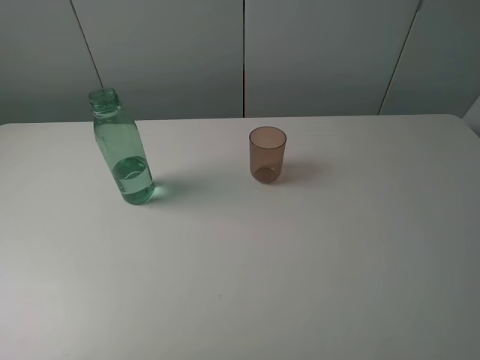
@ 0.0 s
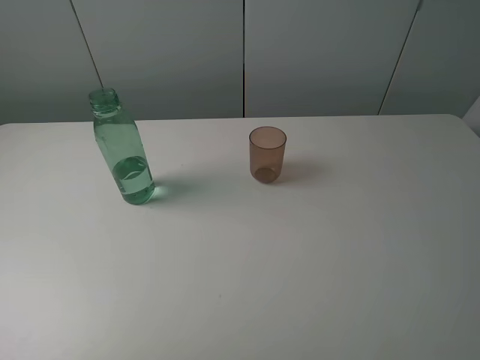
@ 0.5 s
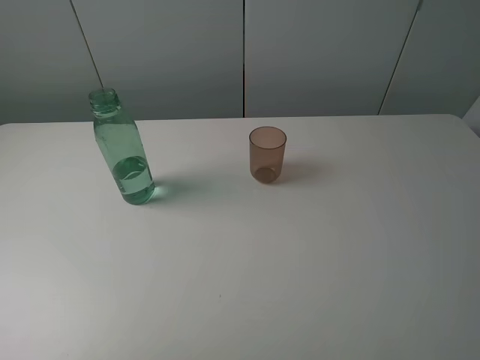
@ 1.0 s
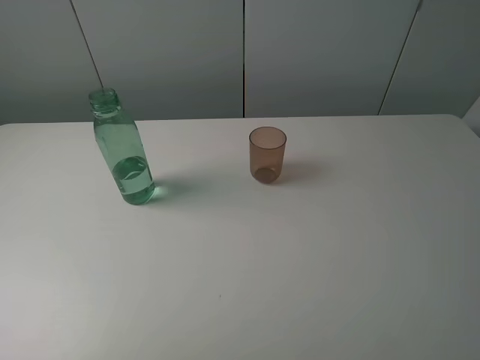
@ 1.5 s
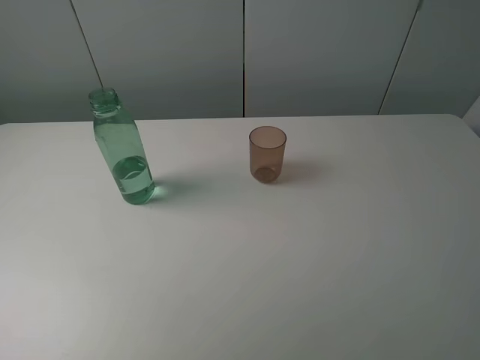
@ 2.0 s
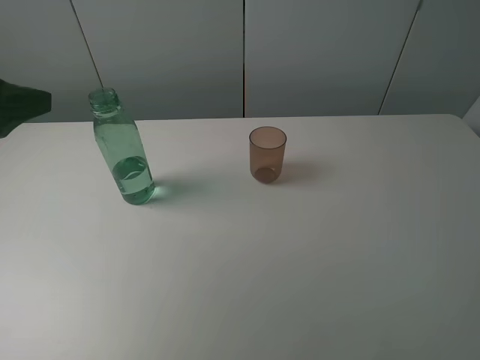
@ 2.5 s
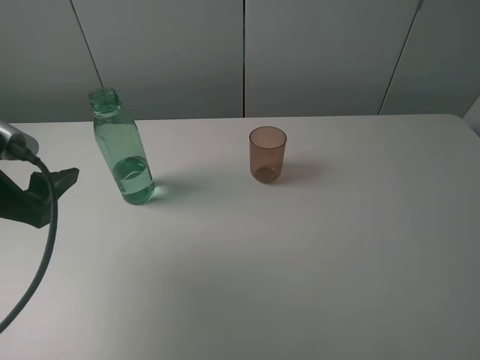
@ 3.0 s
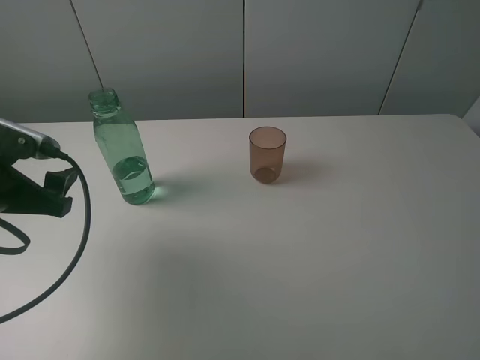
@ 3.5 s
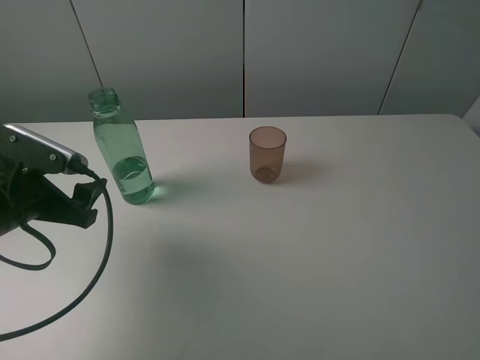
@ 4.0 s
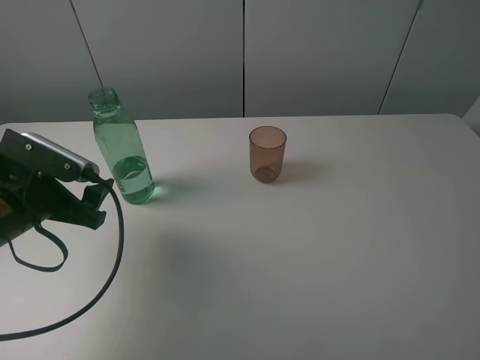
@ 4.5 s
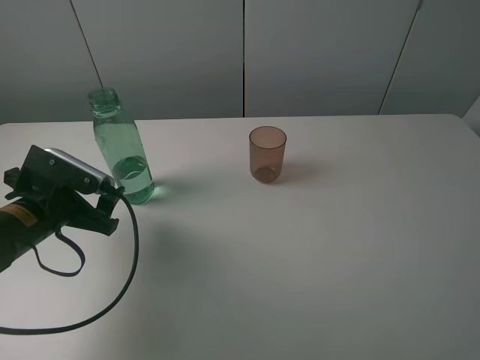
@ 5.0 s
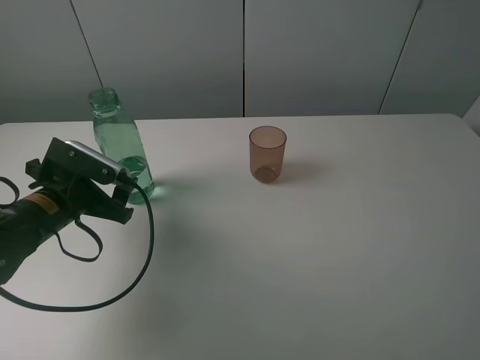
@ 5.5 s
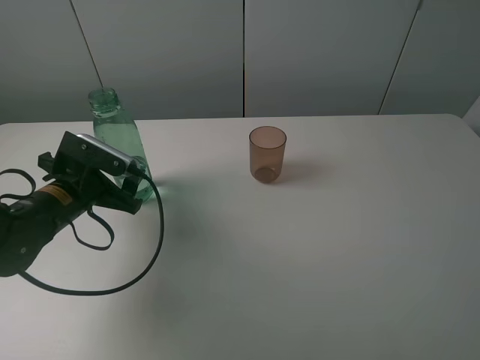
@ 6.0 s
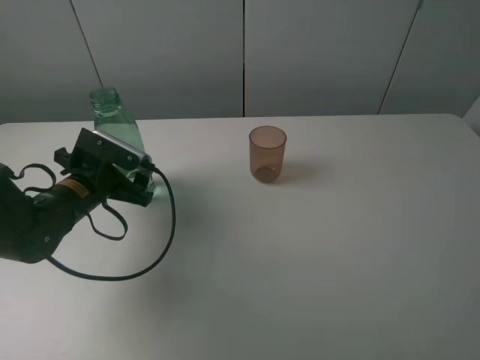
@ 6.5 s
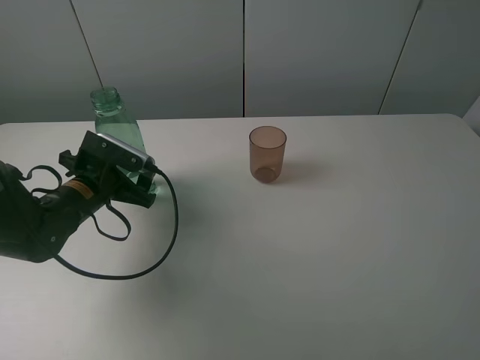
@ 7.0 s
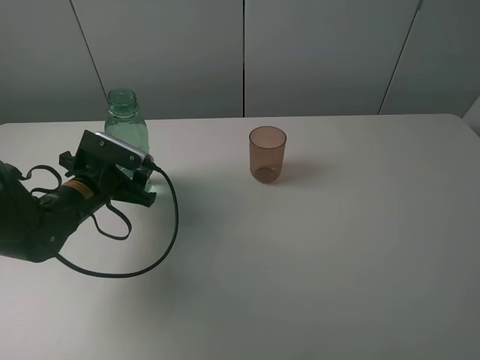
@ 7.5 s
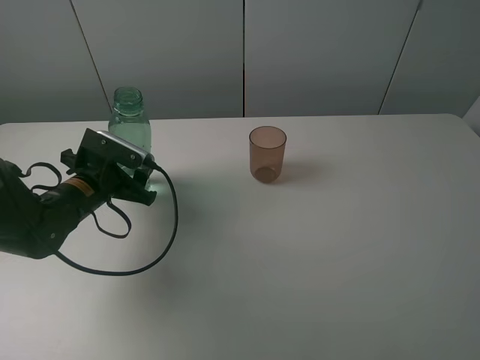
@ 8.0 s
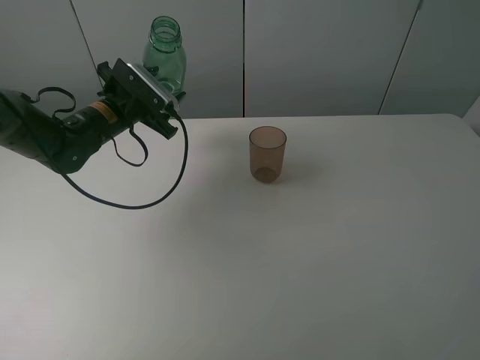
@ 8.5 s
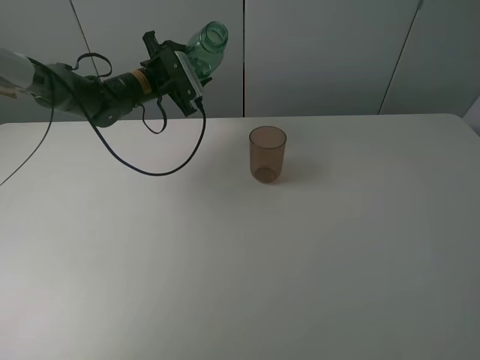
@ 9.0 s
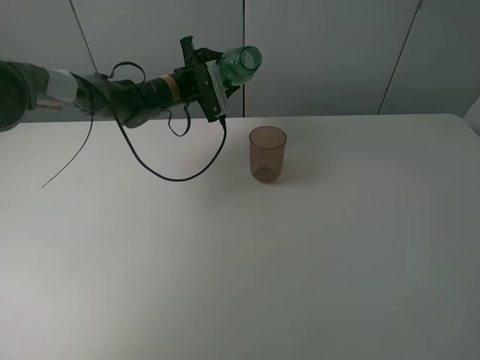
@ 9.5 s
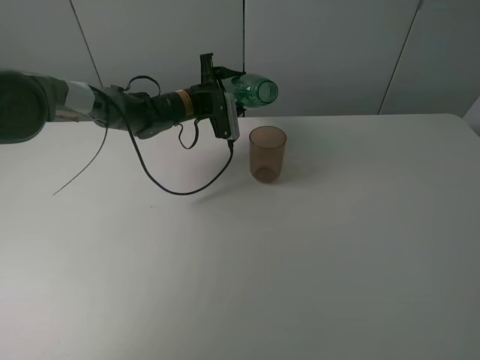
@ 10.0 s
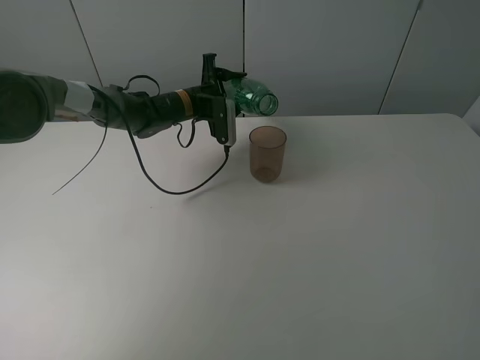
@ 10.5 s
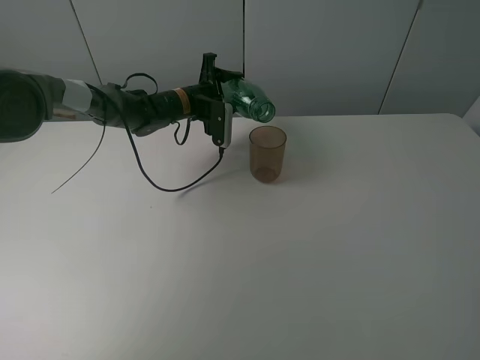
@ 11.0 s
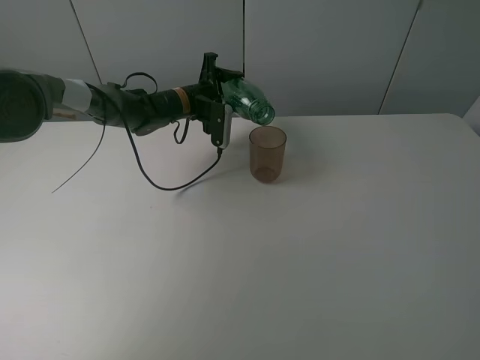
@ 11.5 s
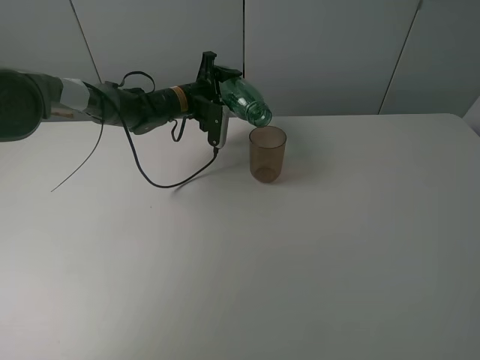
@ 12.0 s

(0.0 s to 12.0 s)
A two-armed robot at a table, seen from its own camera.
Task of the whole recording: pick up the bottle filled with water and pour it into the pink cup.
Step, 0.0 s - 7.5 s: Grasp the green bottle with the left gripper.
2.0 s - 4.0 s: The left gripper travels downward and forward by some 20 cm.
4.0 s - 6.0 s: The left gripper moves forward and downward, roughly 10 cm.
6.0 s - 8.0 s: The left gripper closes its fingers.
8.0 s - 10.0 s: The left gripper is displaced forward and to the right by approximately 25 cm.

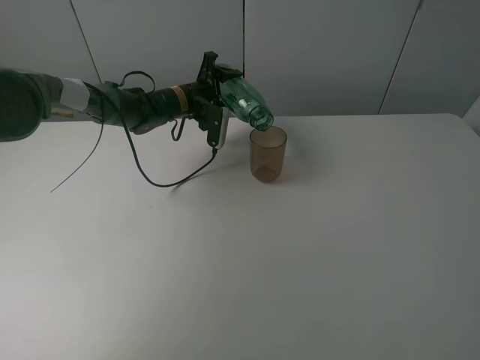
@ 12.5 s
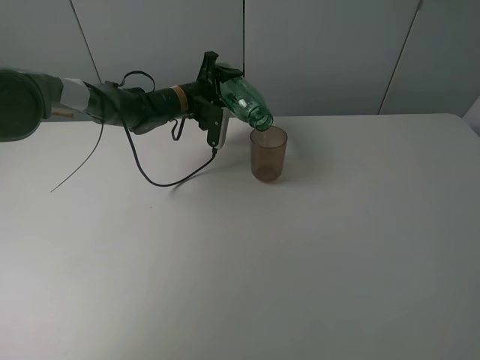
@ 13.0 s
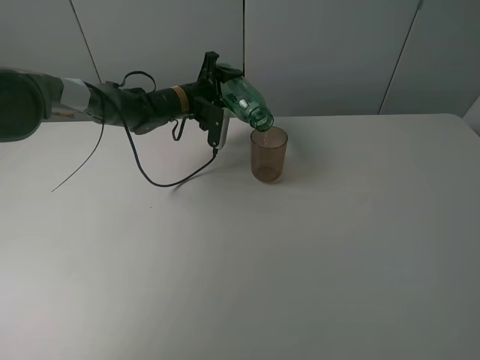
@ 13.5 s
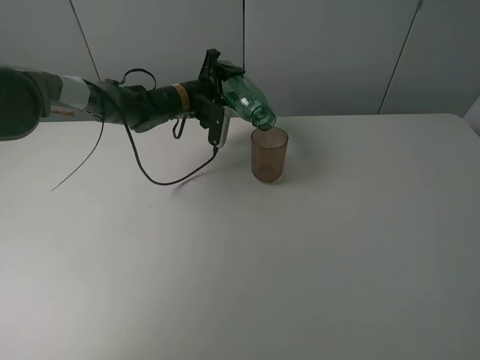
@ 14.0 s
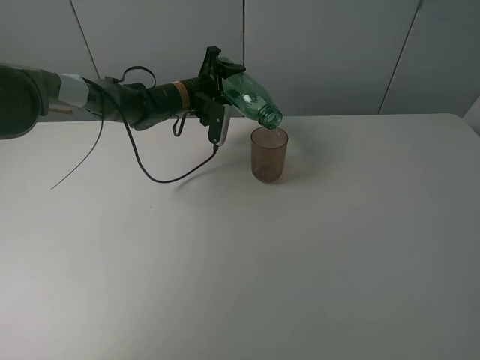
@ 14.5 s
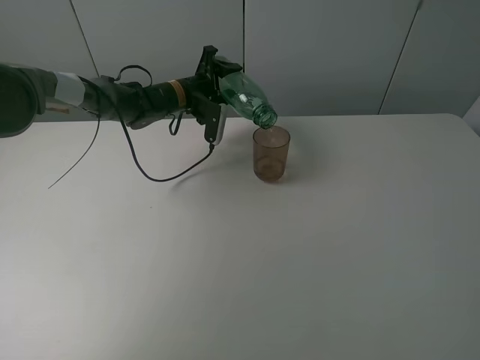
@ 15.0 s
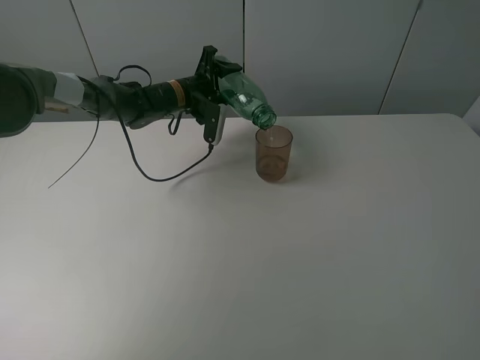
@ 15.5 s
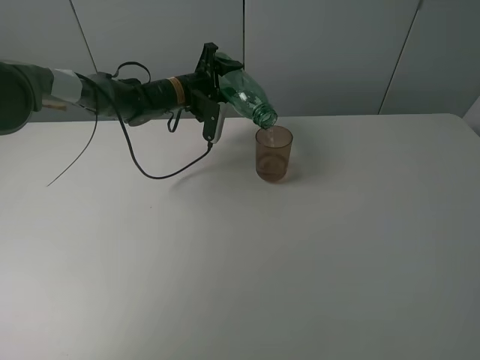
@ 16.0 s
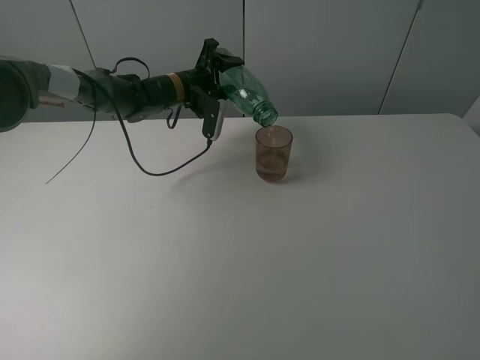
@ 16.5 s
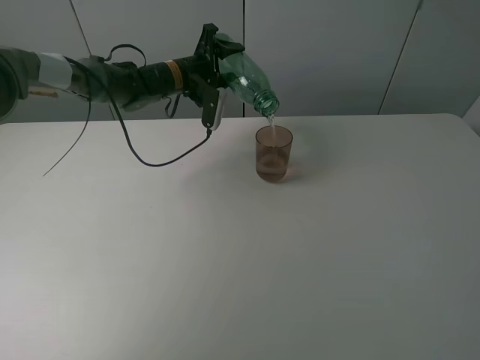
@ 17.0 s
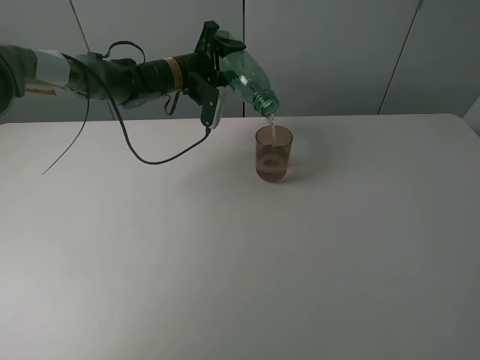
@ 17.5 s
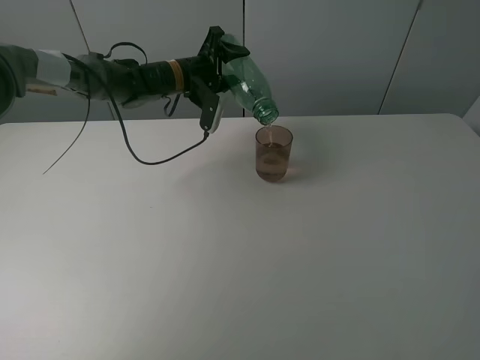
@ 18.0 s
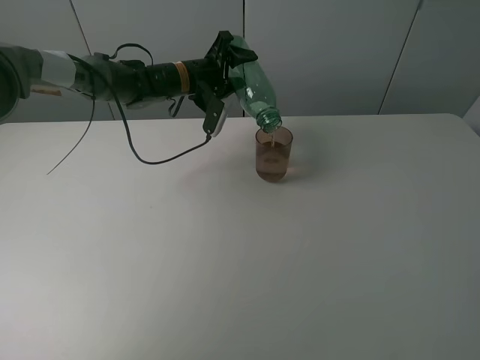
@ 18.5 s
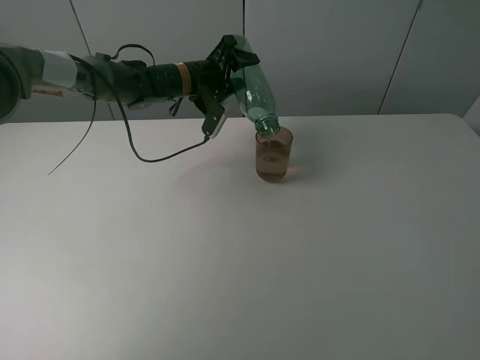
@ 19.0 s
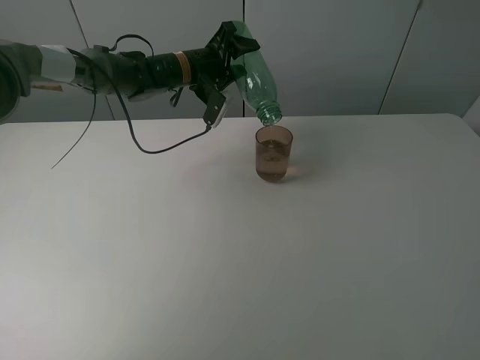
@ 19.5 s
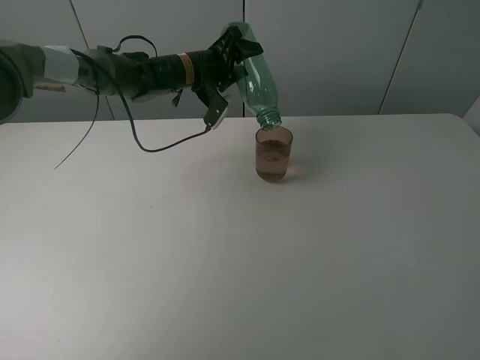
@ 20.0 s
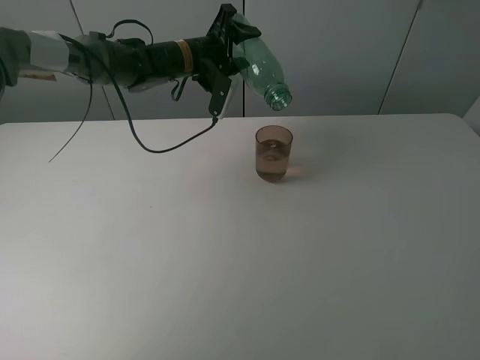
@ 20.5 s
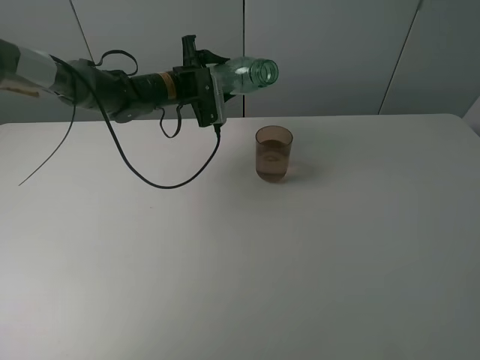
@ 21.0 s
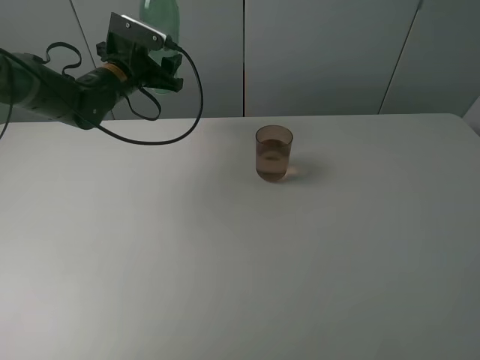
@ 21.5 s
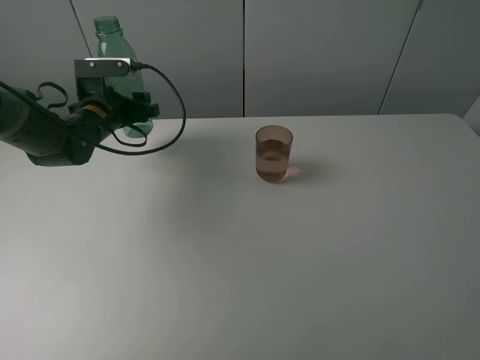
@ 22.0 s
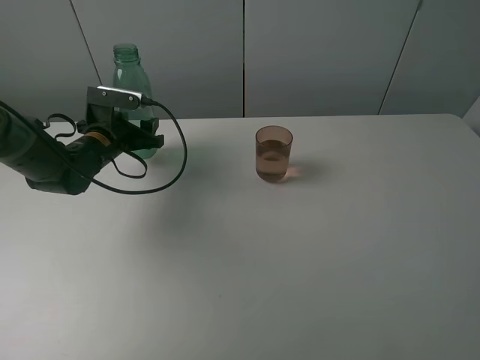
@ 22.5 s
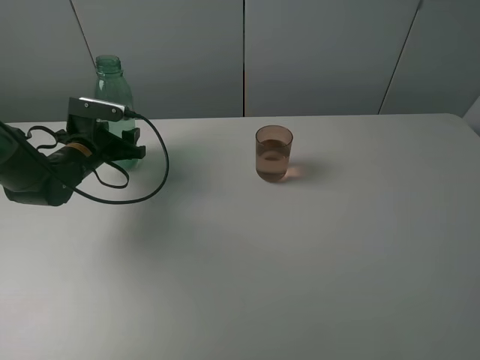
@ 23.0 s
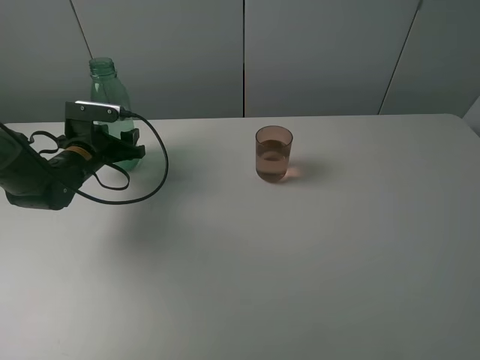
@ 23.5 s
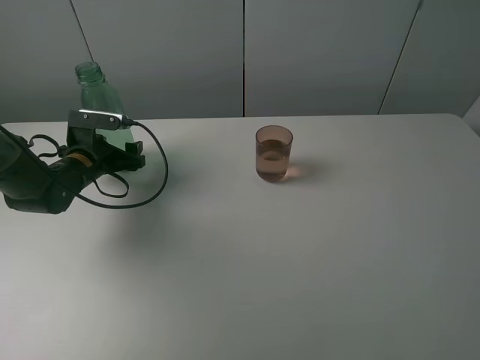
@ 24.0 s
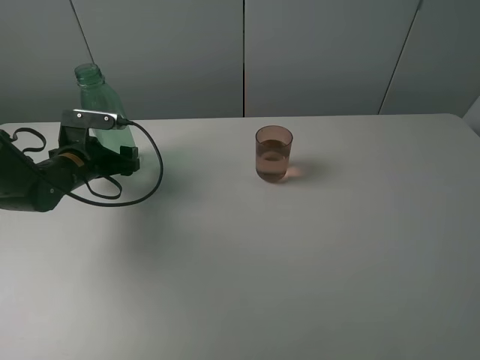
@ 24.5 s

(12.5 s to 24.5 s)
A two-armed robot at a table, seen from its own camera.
Task of the whole recording: pick up the bottle filled with water and pour it into the pink cup.
Step, 12.5 s - 19.5 s: Pour water from green bottle to pink cup with the left gripper.
Step, 20.0 s - 24.0 s: Place the green bottle with the left gripper.
12.5 s - 14.5 s: The two grippers keep their place.
14.5 s - 18.5 s: The grippers make only small movements.
18.5 s - 20.5 s: The grippers move only a little.
20.5 s - 22.5 s: The left gripper shifts approximately 20 cm to the left, backward and downward.
22.5 s - 24.5 s: The left gripper shifts by roughly 5 cm, and opens up.

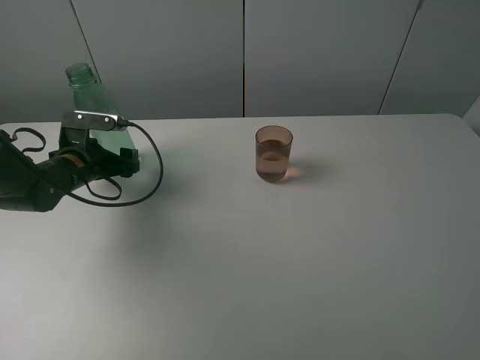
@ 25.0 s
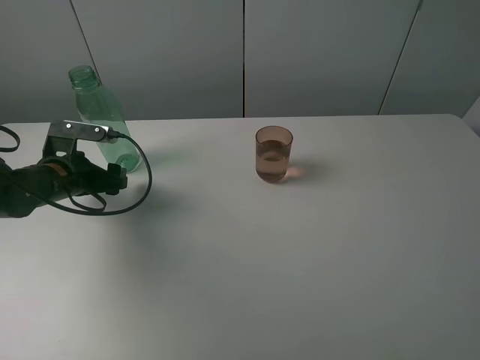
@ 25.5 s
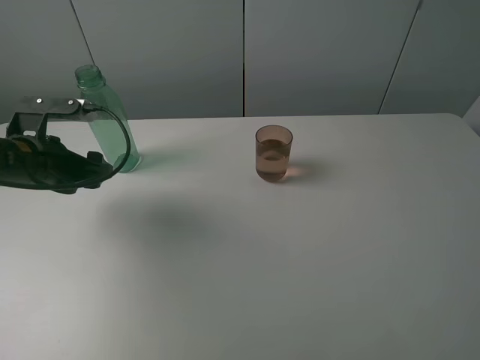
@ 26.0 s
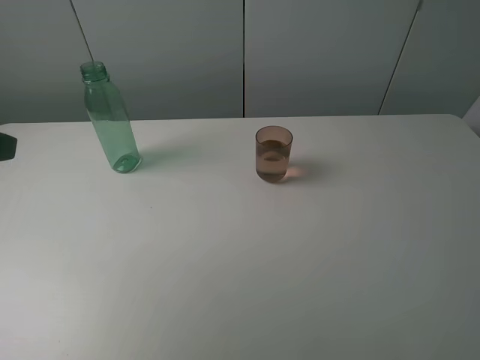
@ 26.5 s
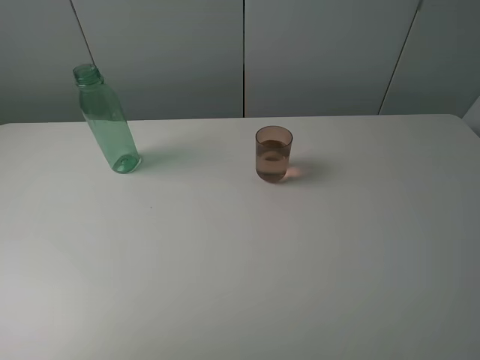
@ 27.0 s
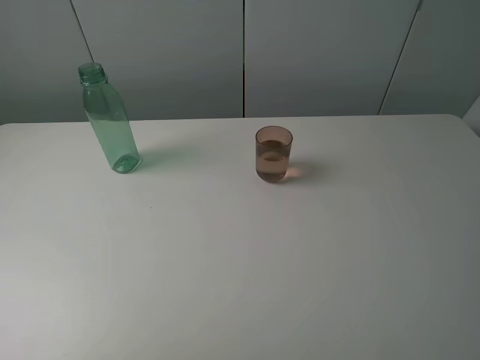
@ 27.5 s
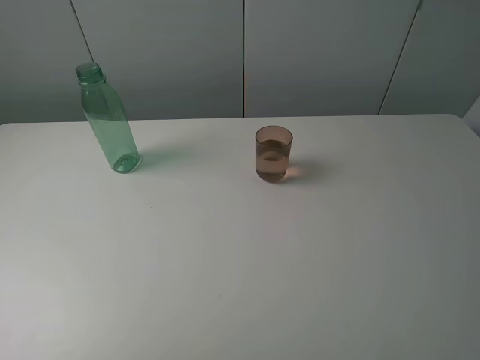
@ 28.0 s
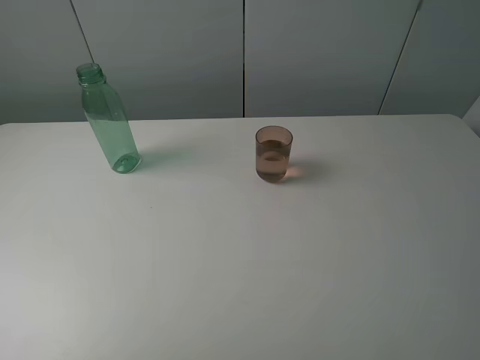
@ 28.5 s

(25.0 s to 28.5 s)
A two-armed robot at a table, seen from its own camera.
Task of the whole recording: pick up the bottle filled with water and pour it into the pink cup.
25.0 s - 27.0 s: The left gripper shifts about 40 cm backward and upward.
